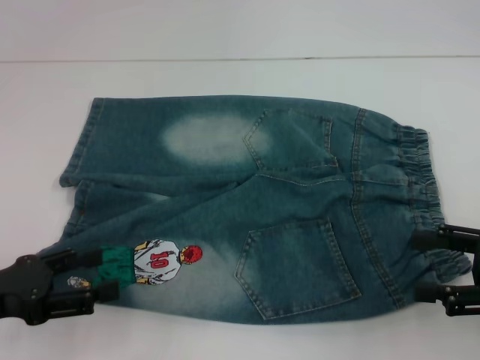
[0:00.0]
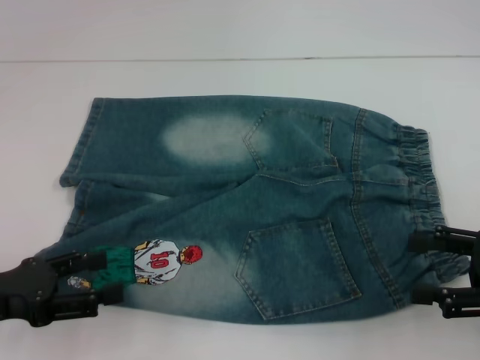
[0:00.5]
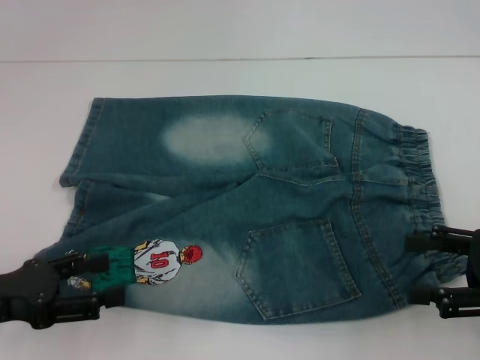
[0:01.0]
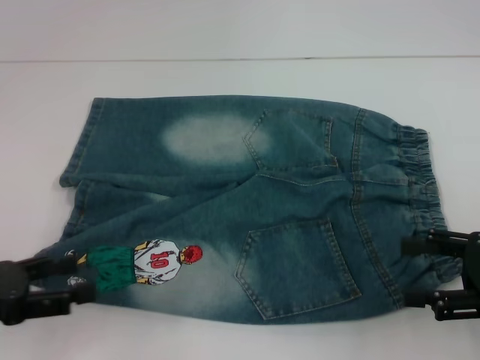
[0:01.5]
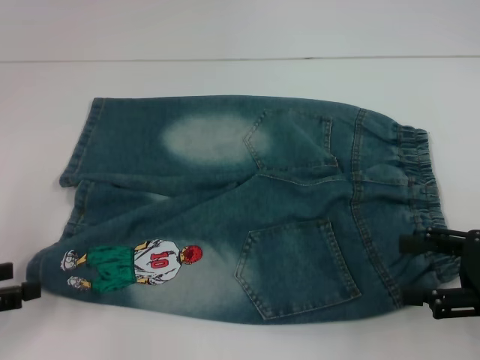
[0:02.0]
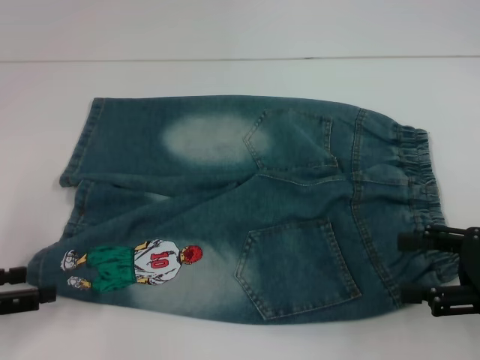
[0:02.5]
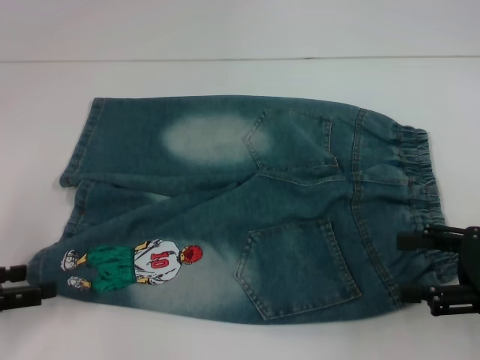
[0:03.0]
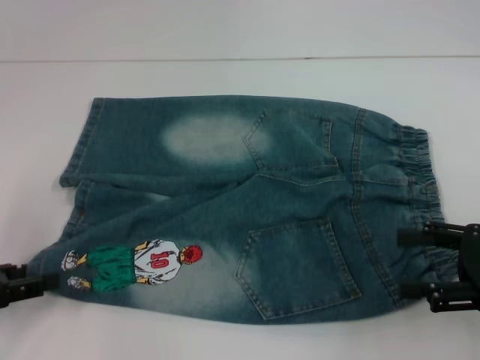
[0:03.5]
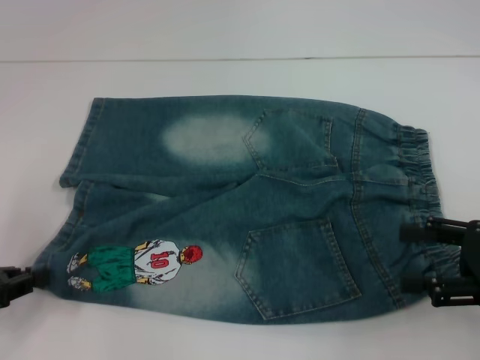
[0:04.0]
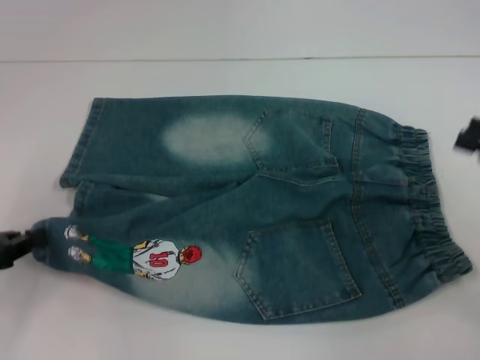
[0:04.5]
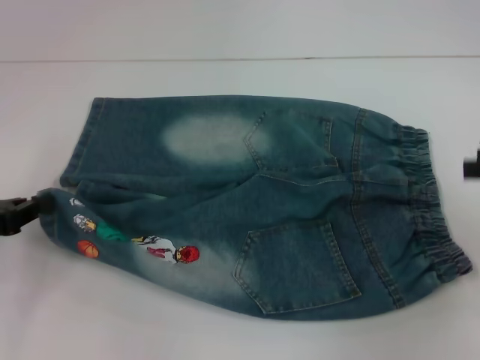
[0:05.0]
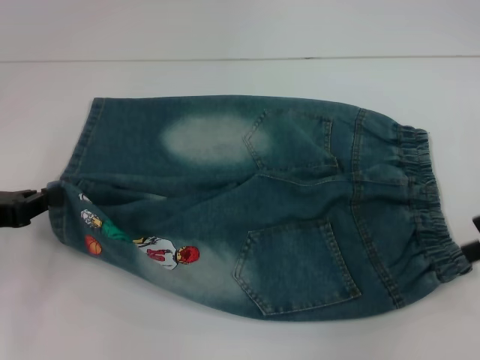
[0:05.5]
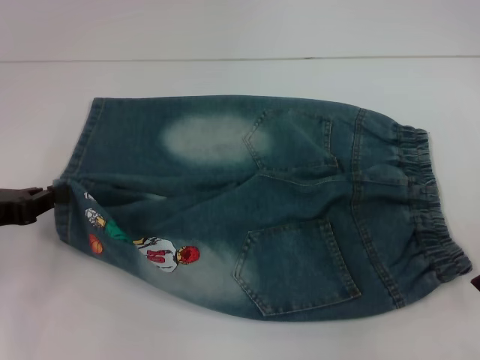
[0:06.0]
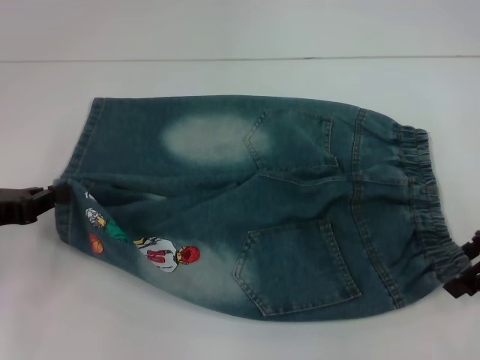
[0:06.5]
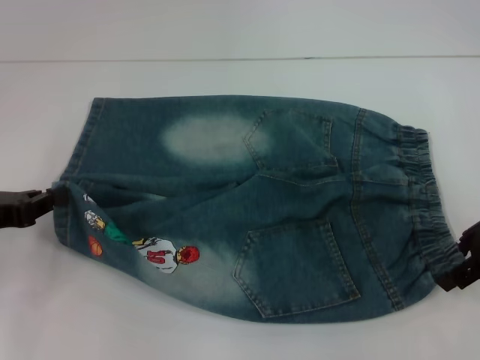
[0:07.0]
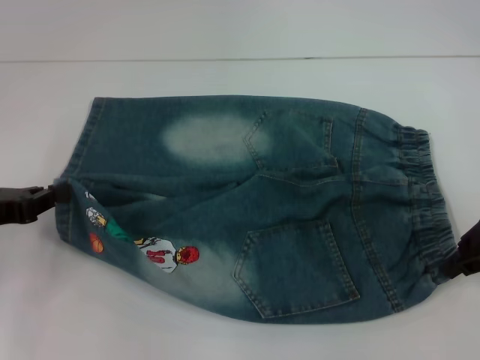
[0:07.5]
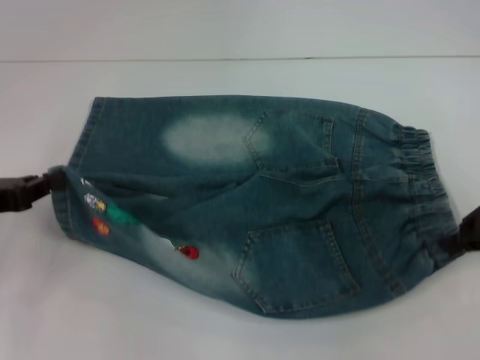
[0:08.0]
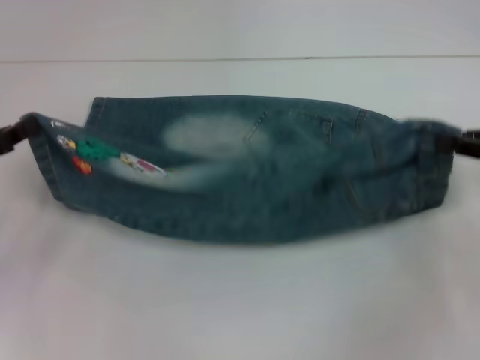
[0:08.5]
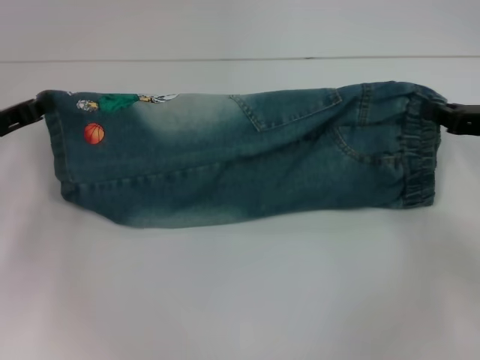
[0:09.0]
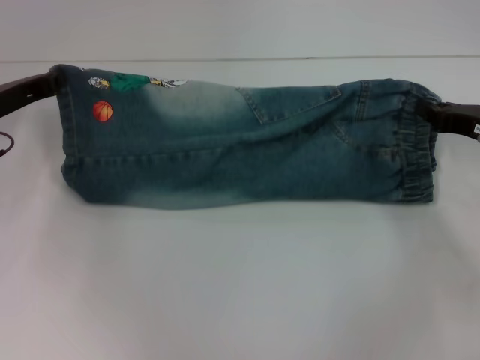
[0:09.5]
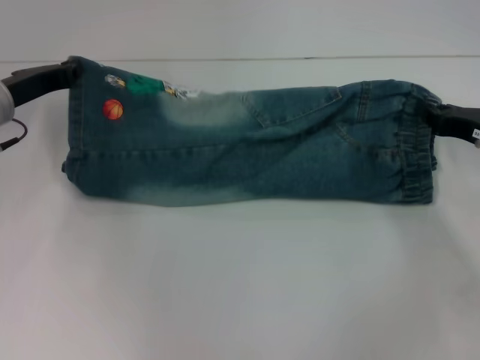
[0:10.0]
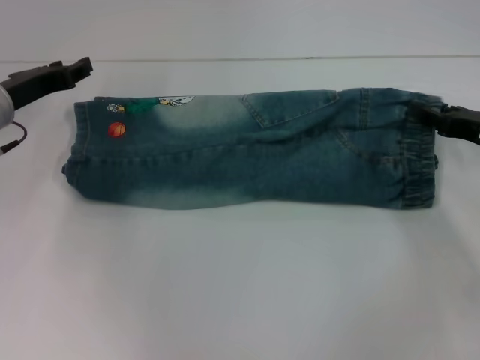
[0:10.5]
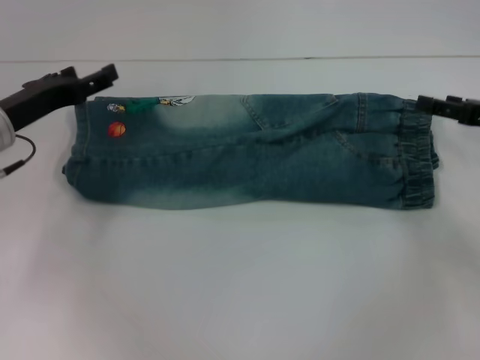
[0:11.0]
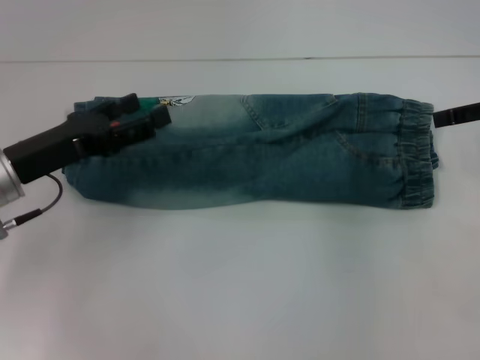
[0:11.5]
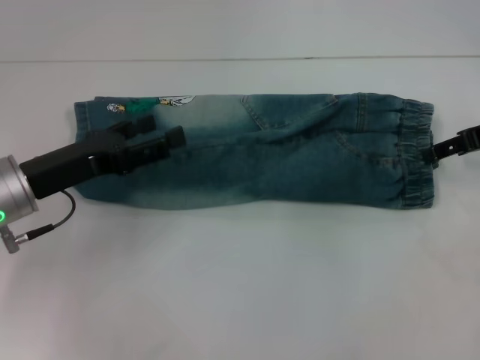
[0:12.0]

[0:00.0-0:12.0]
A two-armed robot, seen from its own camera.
Step, 0:00.0 to 0:04.0: Grab the lower left pant leg with your left hand.
Step, 0:04.5 to 0:07.5: Hold the lower right waistband with your right hand.
Step, 0:08.0 to 0:10.0: Fold upward with your left hand.
0:00.0 to 0:02.0: The left gripper shifts some 5 cm to the left.
0:02.0 to 0:04.0: The left gripper closes its fingers.
0:04.0 to 0:06.0: The left gripper shifts by approximately 5 cm, and closes, while the right gripper goes some 10 cm forward and upward.
0:06.0 to 0:08.0: The right gripper closes.
0:08.0 to 0:10.0: The right gripper travels downward by approximately 10 cm. Meanwhile the left gripper heads forward and to the right, covering roughly 15 cm.
0:10.0 to 0:12.0: The left gripper moves backward, roughly 10 cm, and opens its fingers. Meanwhile the right gripper heads upward, covering some 10 cm, and opens its fingers.

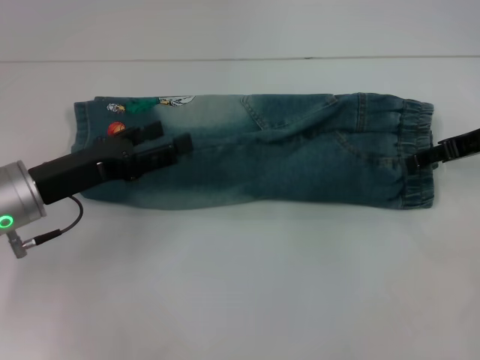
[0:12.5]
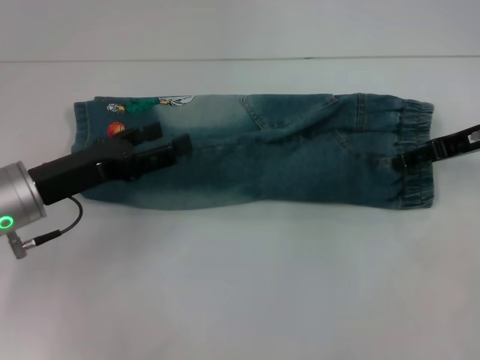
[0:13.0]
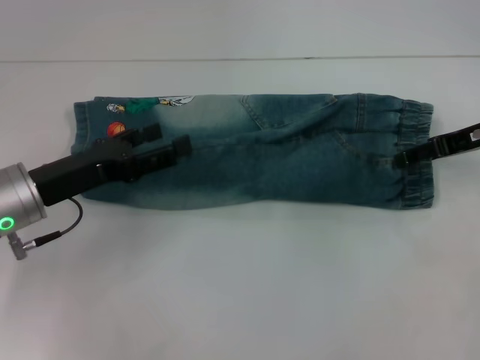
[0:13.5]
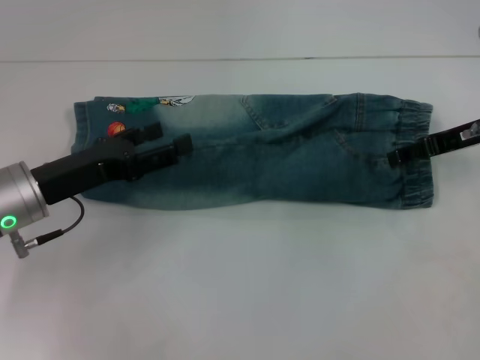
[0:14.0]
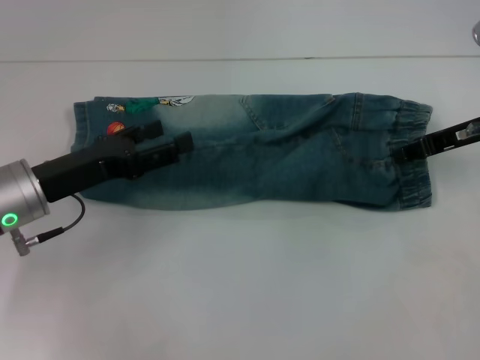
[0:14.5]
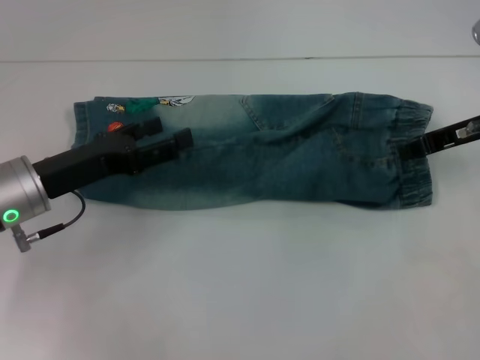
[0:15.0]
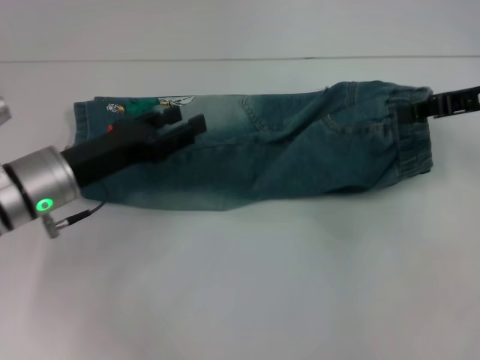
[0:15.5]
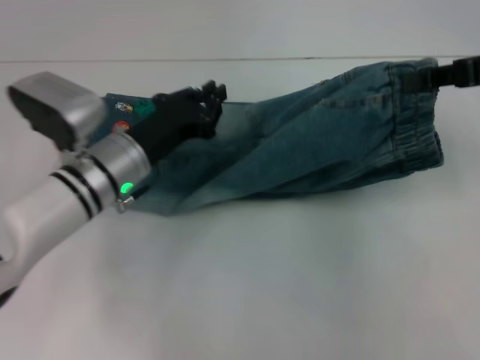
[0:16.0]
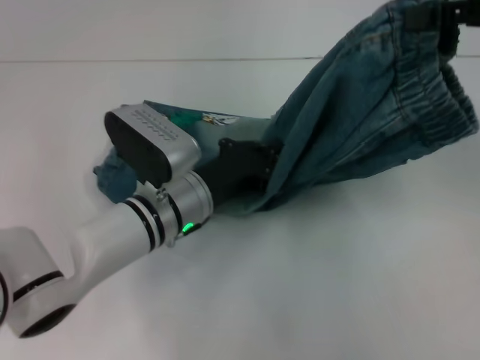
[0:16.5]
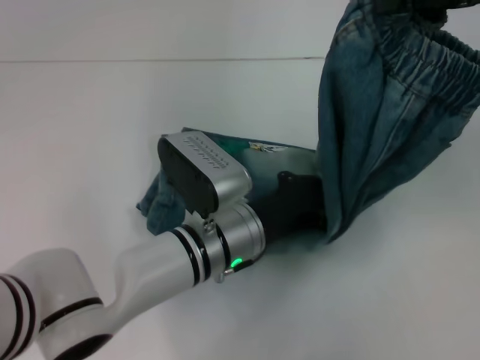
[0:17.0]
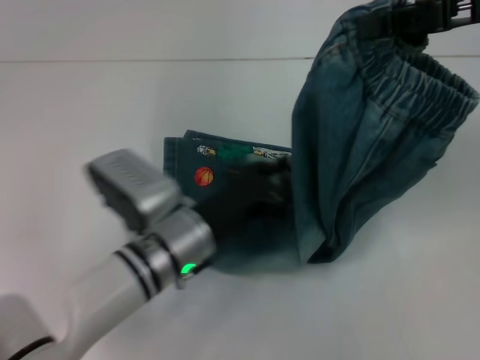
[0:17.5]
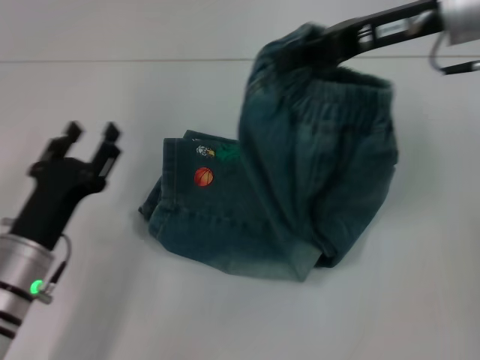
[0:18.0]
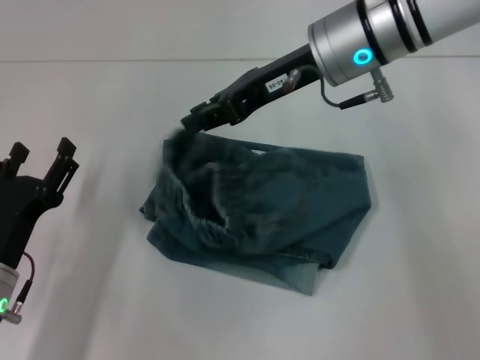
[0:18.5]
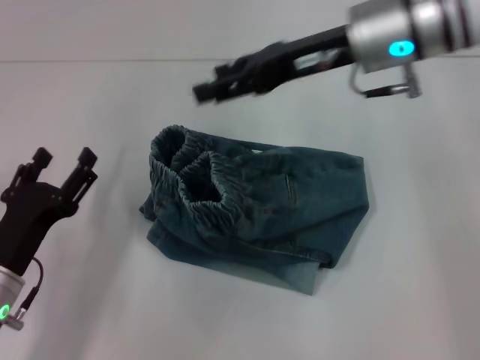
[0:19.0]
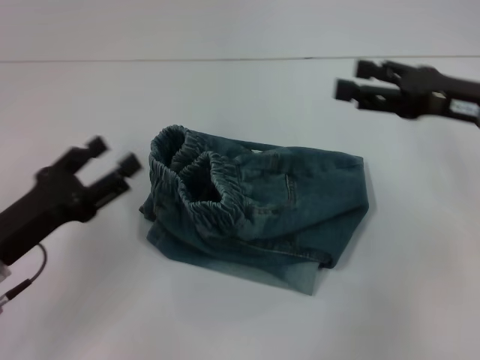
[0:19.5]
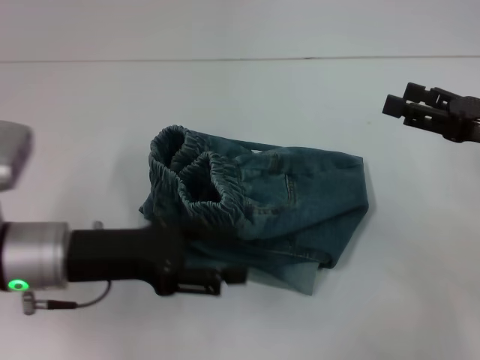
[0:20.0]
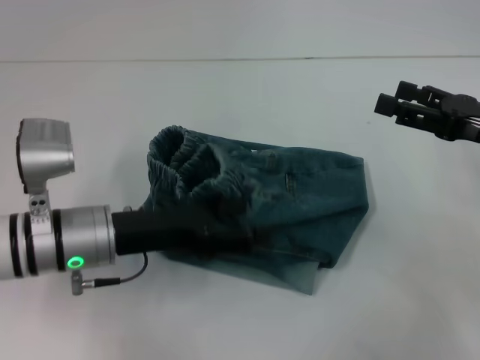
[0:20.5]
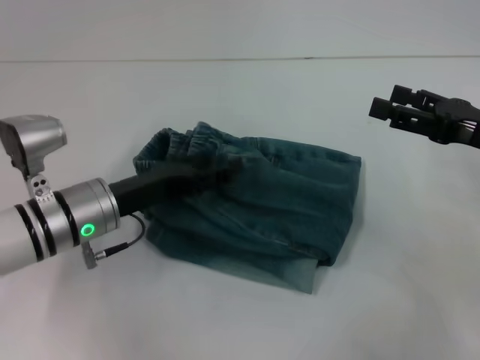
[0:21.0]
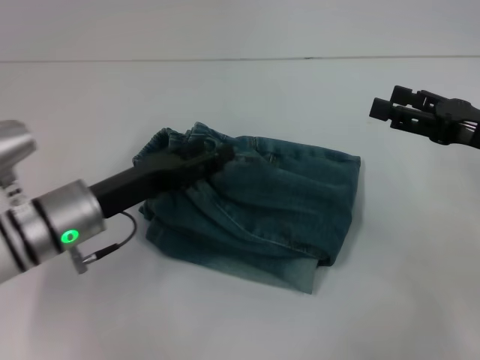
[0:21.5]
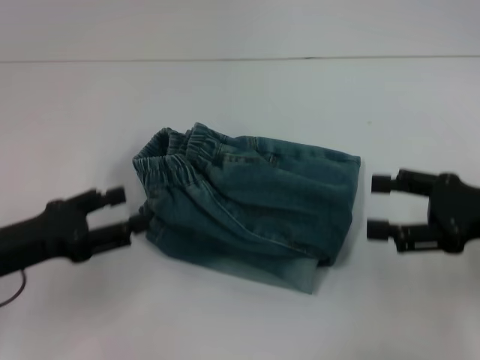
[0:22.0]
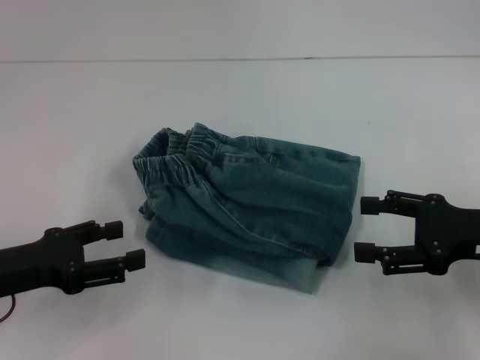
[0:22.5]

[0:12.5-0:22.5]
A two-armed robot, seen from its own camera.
Step, 0:12.5 to 0:15.0: Grab the waistband with your right hand.
Step, 0:15.5 to 0:17.0: Press the middle of the pants with your left hand.
Step, 0:17.5 to 0:18.5: Fold to the left with your right hand.
Step, 0:19.0 to 0:21.0: Adjust the pants with your left hand.
0:12.5 to 0:14.5: The right gripper closes.
0:14.5 to 0:16.5: The right gripper shifts roughly 15 cm upward, and closes its fingers, while the left gripper is displaced to the right by roughly 15 cm, and closes.
0:16.5 to 0:18.5: The left gripper travels to the left and backward by roughly 20 cm, and opens. Meanwhile the right gripper heads to the left, covering some 20 cm.
0:18.5 to 0:20.5: The left gripper heads to the right, forward and upward, covering about 10 cm. Meanwhile the right gripper shifts some 25 cm to the right, backward and downward, and opens up.
0:20.5 to 0:22.5: The left gripper heads to the left and backward, covering approximately 15 cm, while the right gripper heads backward, covering some 5 cm.

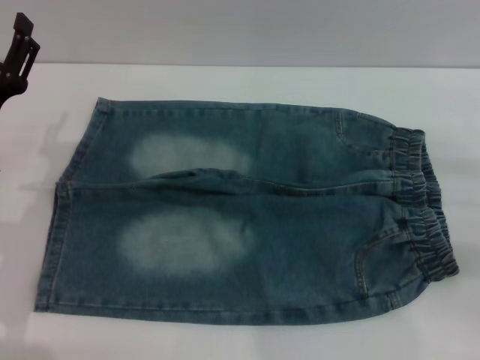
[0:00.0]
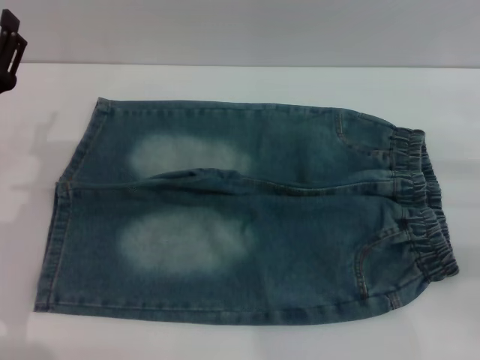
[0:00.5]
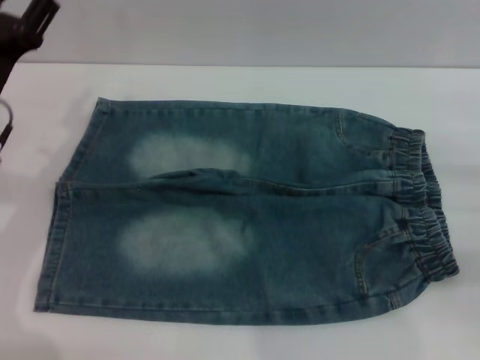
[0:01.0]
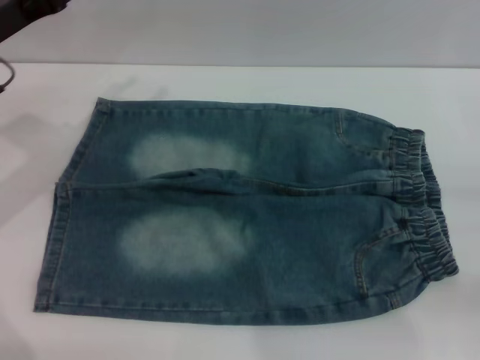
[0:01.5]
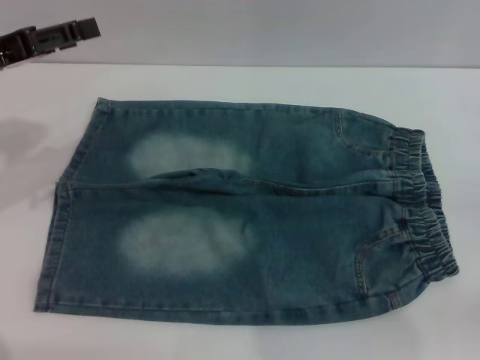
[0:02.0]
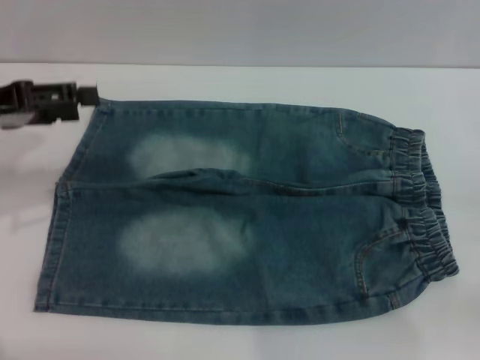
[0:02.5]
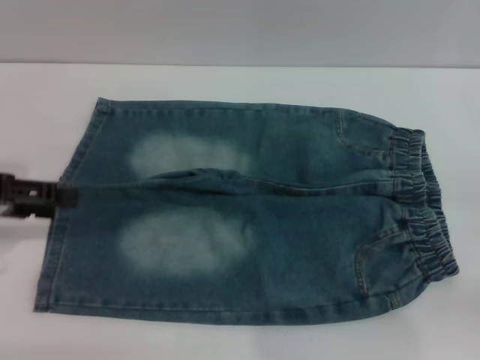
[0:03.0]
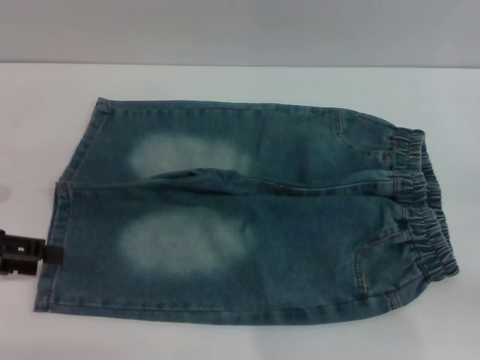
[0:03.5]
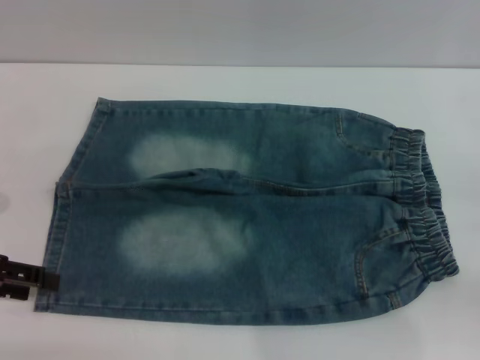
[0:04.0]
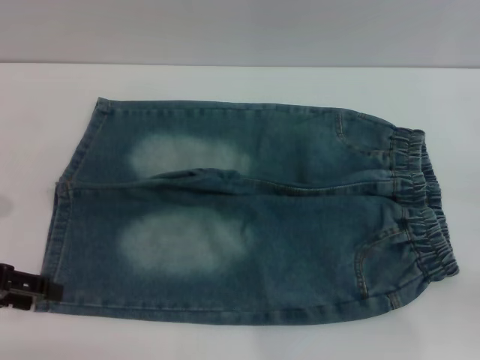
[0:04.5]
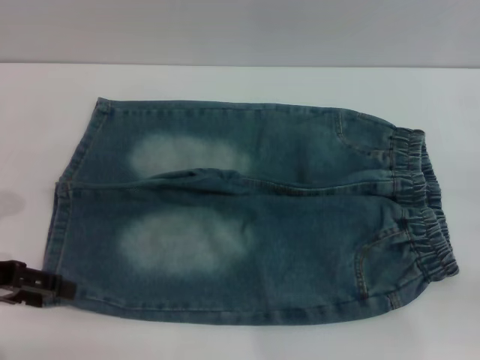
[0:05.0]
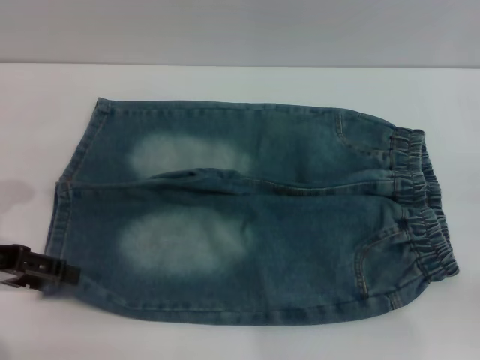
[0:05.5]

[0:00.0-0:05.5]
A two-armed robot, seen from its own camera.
0:00.0 to 0:02.0: The left gripper is displaced upward, forward and to the left by approximately 15 cm; the right gripper moves backward and to the right, roughly 10 cm.
0:02.0 to 0:03.5: The left gripper goes approximately 10 cm backward.
0:03.5 to 0:05.5: The grippers move only a little.
